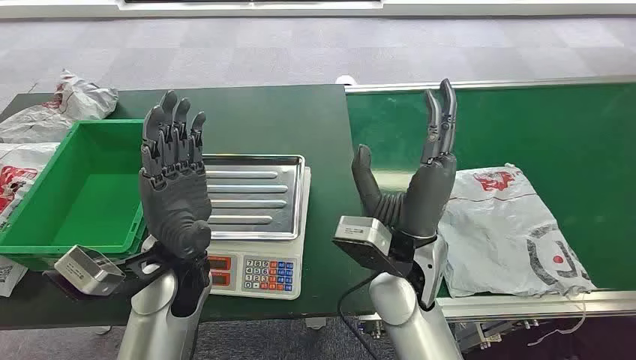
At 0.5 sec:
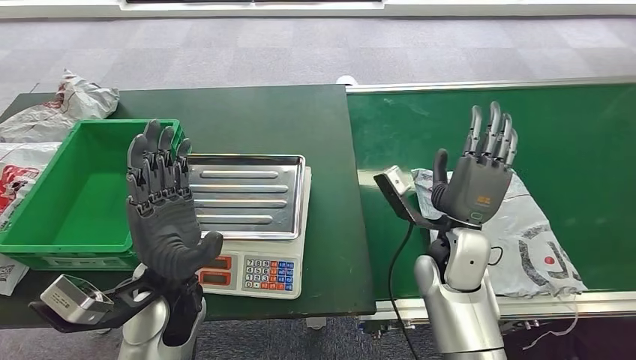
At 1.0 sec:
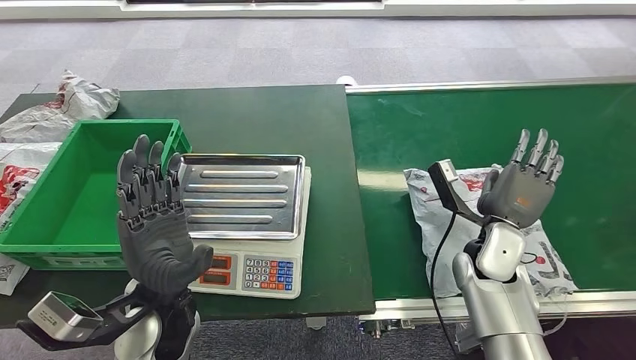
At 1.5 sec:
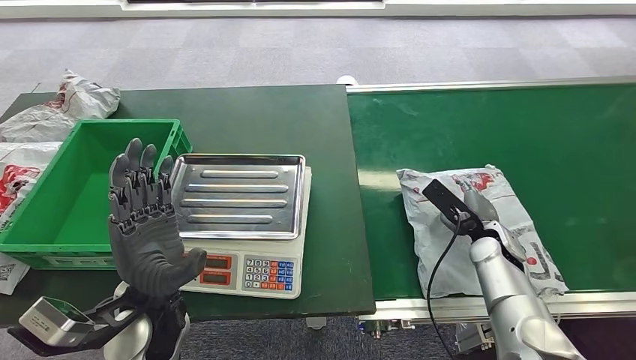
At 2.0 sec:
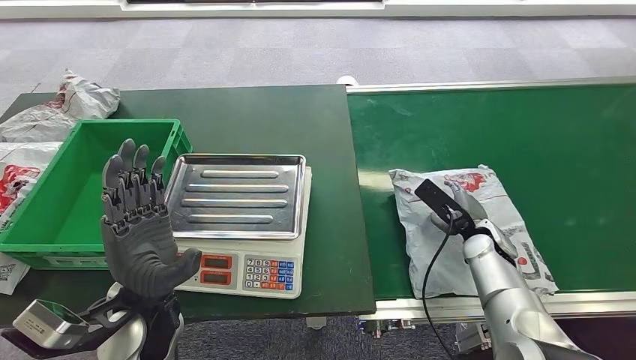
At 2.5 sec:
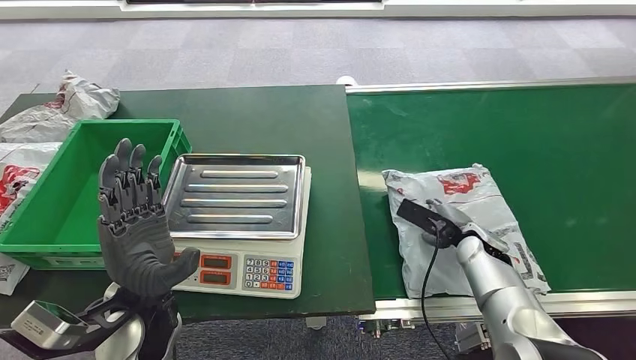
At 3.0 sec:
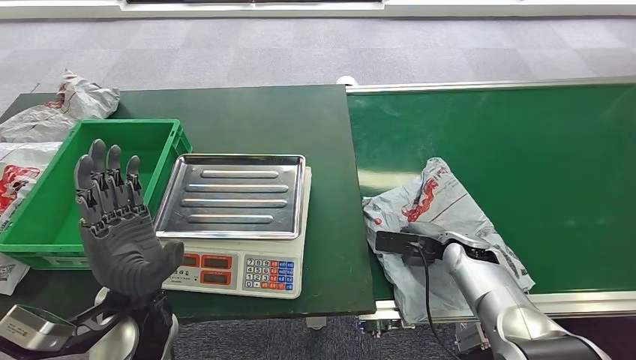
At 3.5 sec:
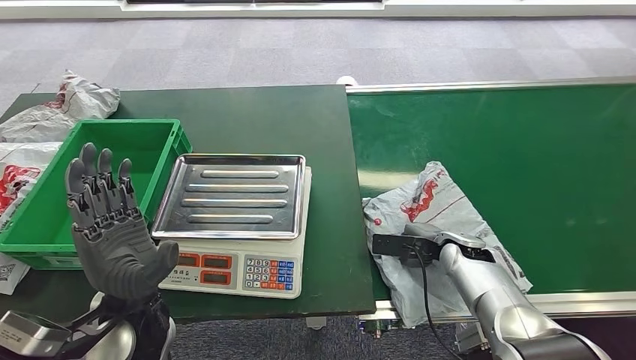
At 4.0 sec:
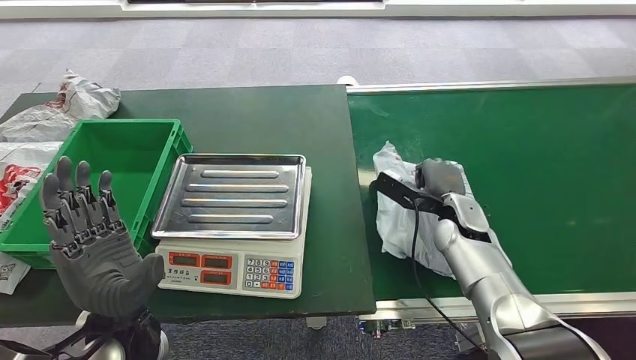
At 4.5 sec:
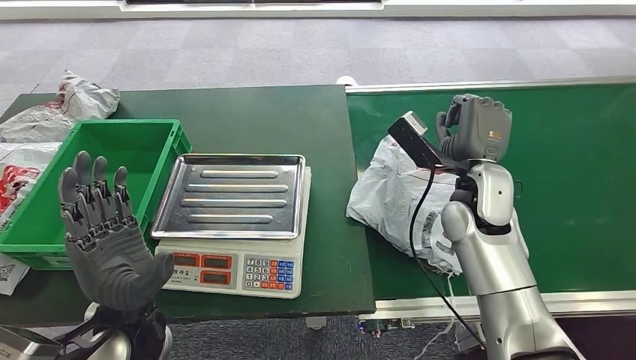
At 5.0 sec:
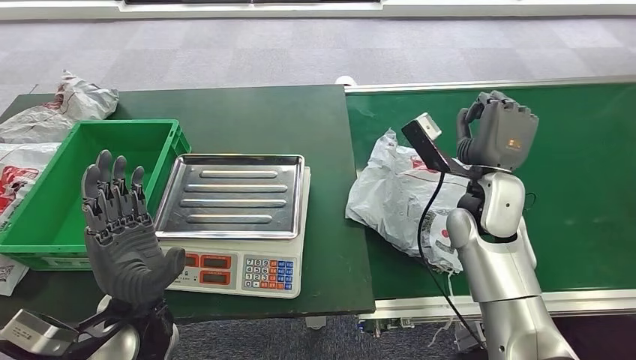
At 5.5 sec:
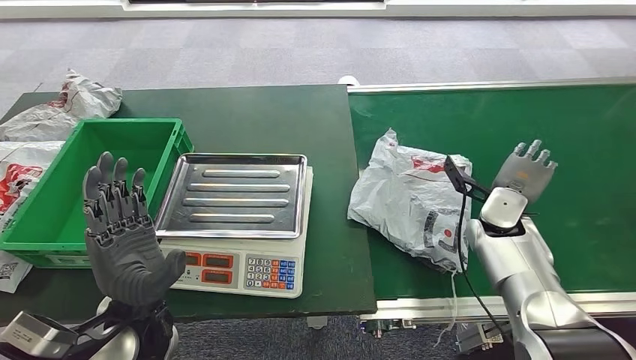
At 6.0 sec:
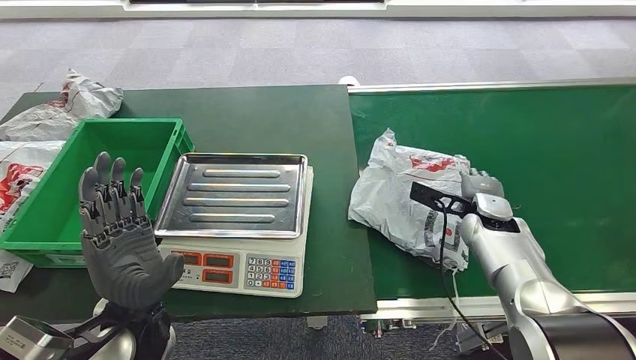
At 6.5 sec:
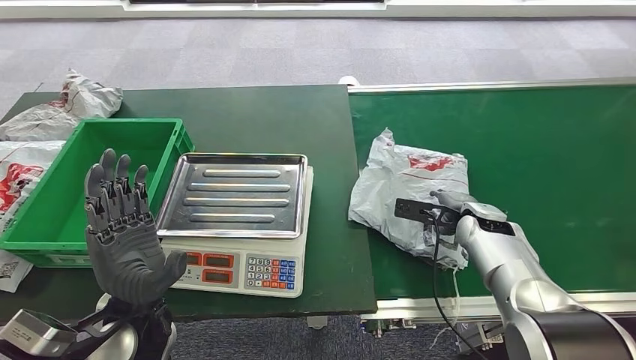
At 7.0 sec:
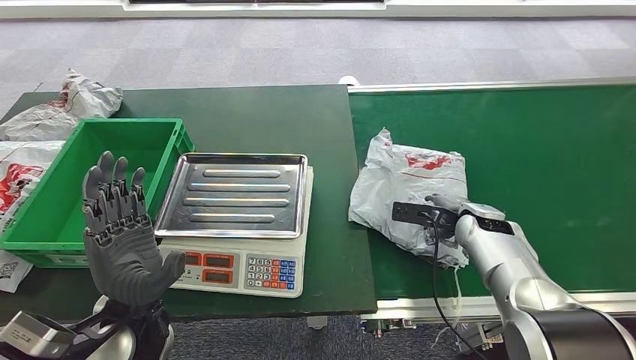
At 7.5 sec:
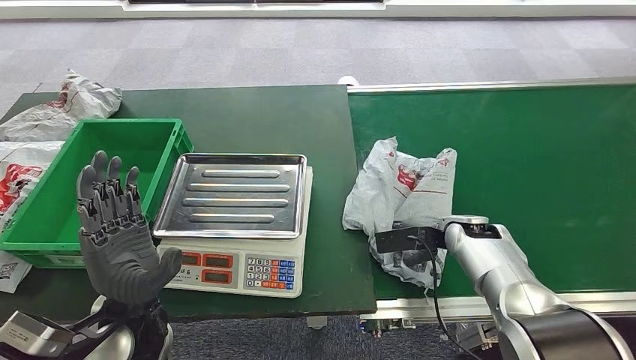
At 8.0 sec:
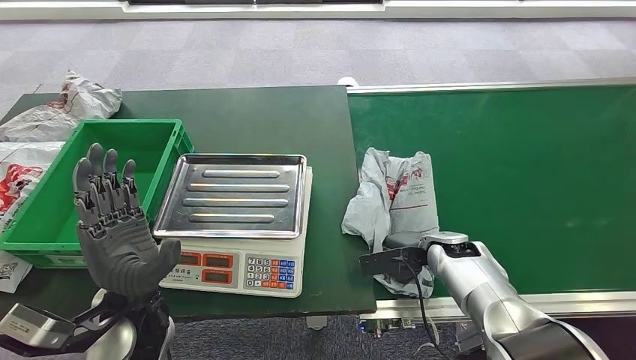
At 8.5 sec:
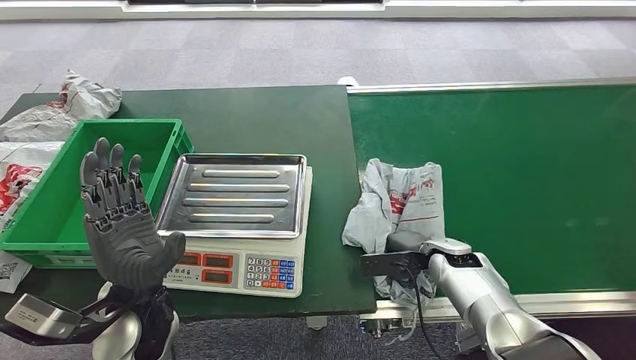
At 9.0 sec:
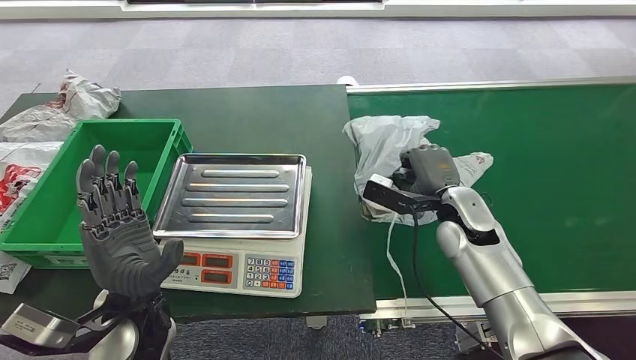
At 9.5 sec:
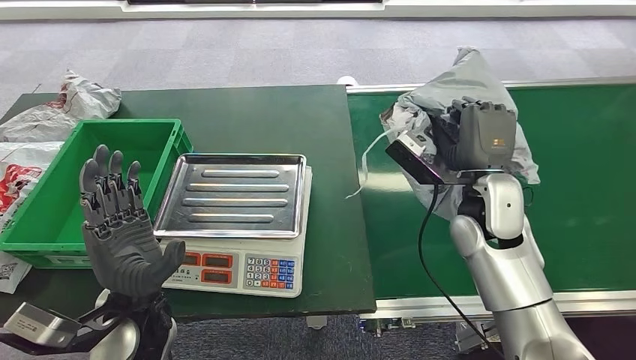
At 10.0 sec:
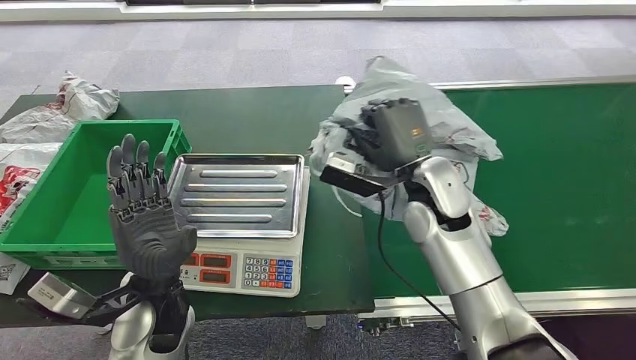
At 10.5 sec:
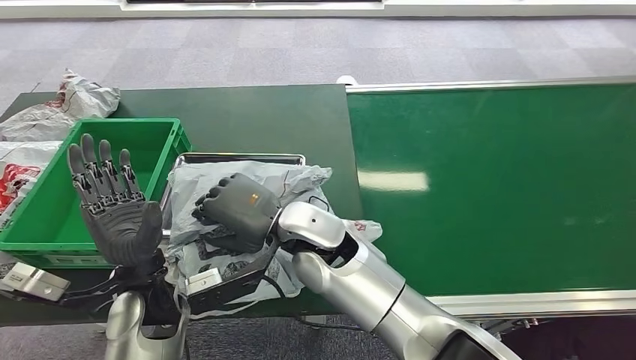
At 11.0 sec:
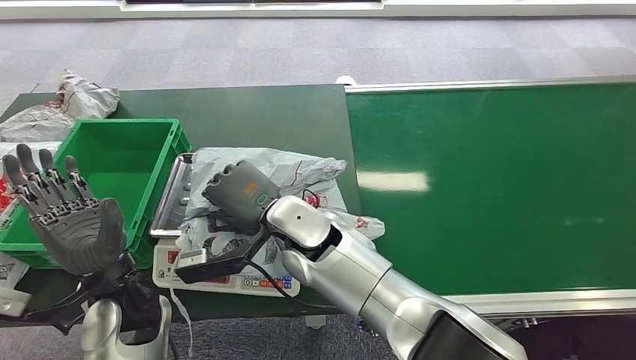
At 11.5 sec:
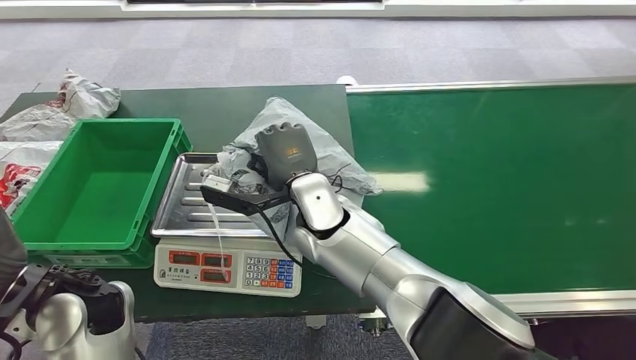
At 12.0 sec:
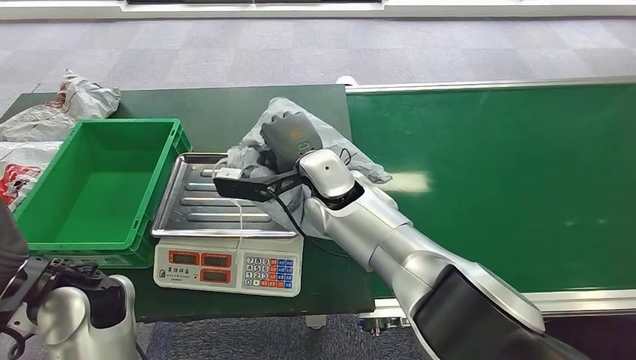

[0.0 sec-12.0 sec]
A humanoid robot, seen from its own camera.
Step, 0.0 sec to 9.0 sec: Pick up the package from the conveyor belt.
2.0 sec to 4.0 sec: The right hand travels to the left by some 5 cm.
4.0 sec to 6.0 sec: The right hand moves to the right, roughly 5 cm, and moves some 10 cm upward and comes back.
6.0 sec to 8.0 sec: The right hand shifts some 10 cm downward and to the left.

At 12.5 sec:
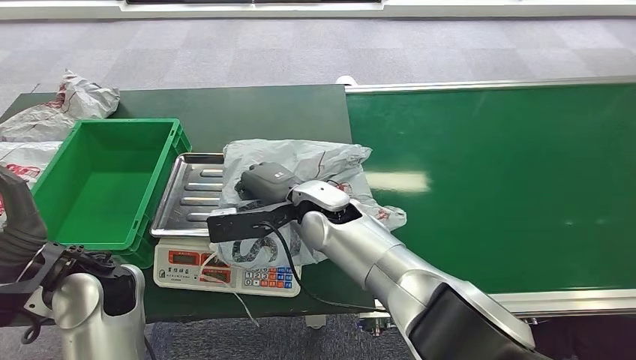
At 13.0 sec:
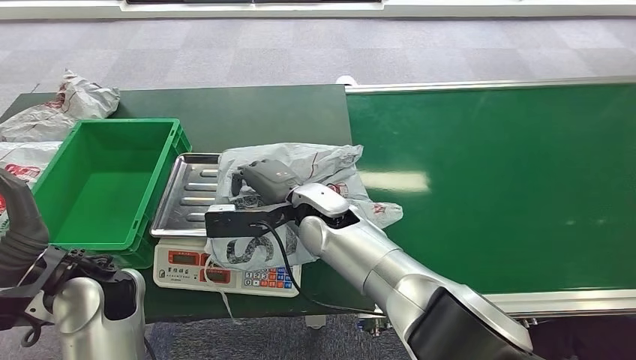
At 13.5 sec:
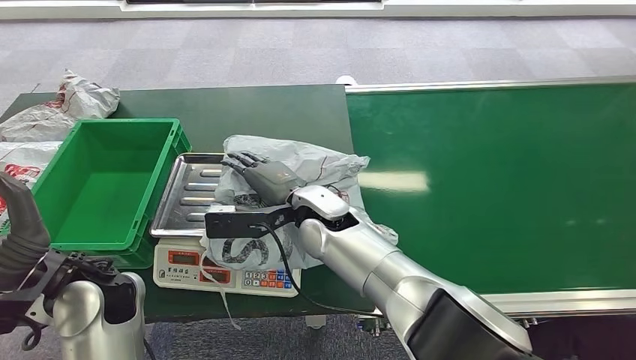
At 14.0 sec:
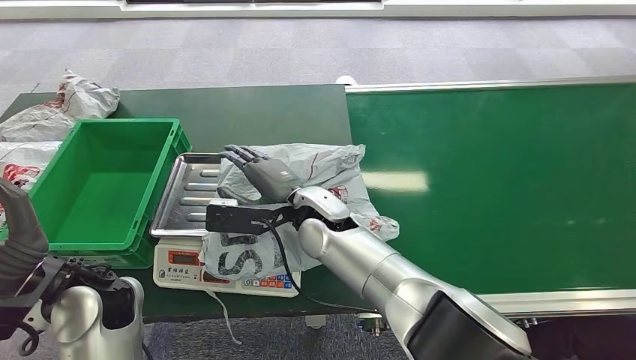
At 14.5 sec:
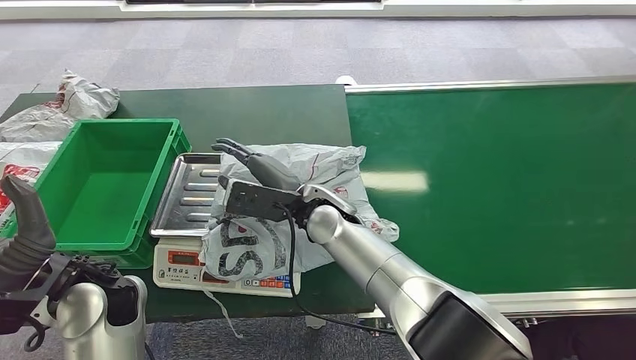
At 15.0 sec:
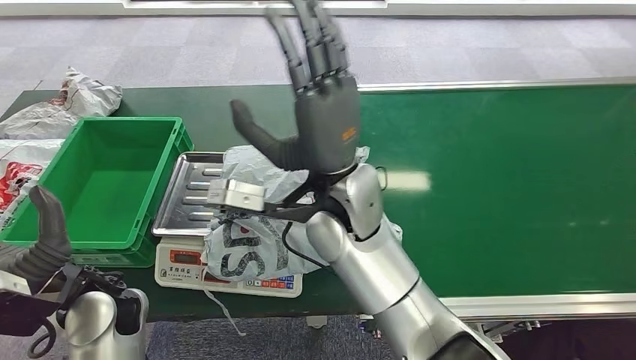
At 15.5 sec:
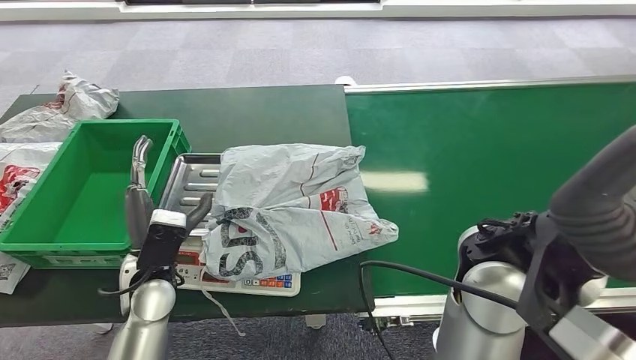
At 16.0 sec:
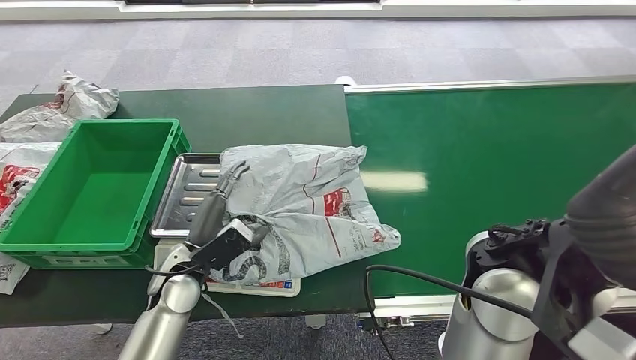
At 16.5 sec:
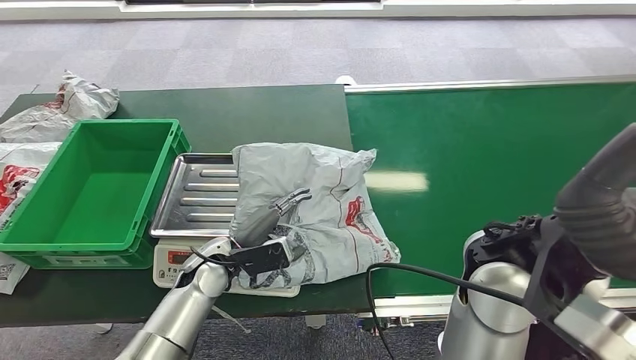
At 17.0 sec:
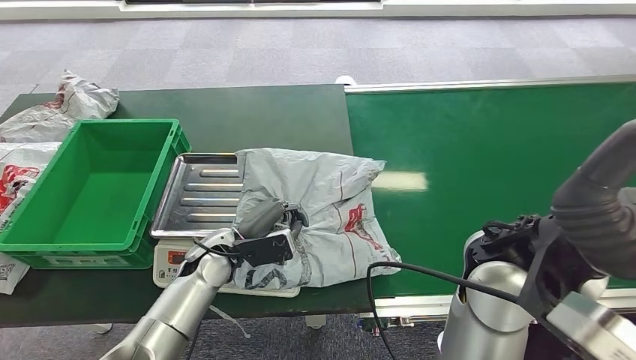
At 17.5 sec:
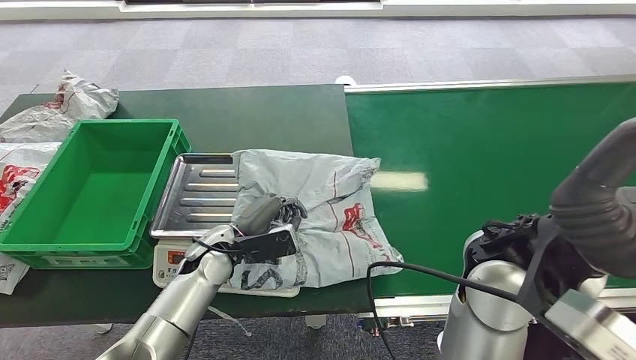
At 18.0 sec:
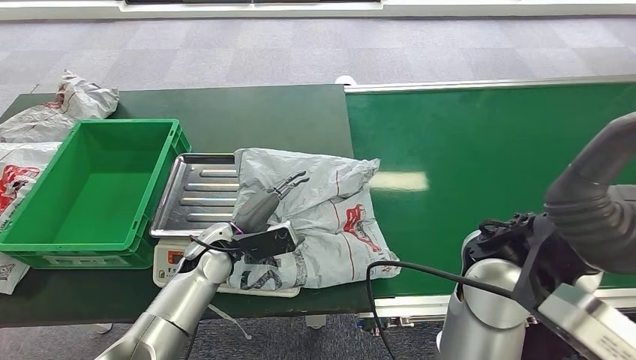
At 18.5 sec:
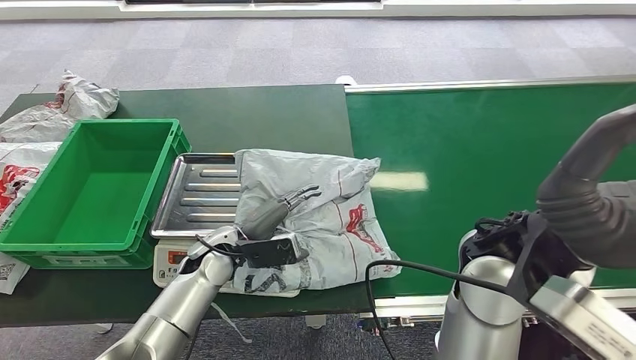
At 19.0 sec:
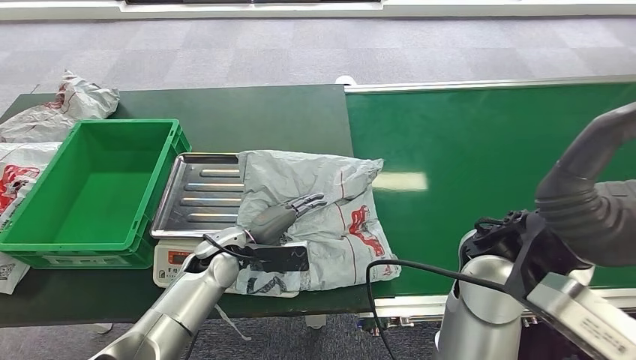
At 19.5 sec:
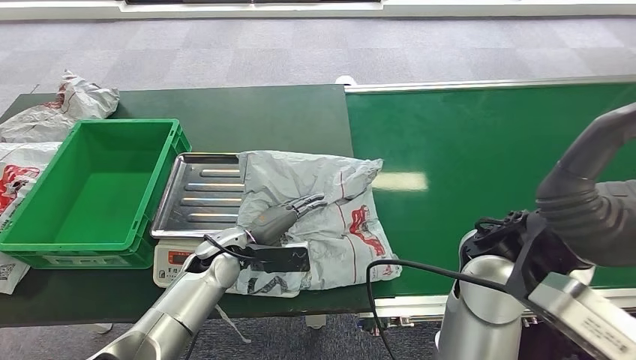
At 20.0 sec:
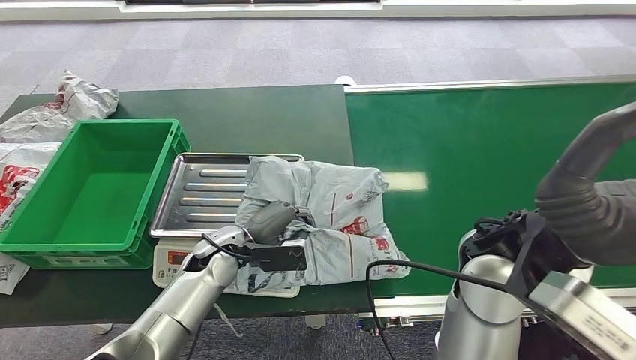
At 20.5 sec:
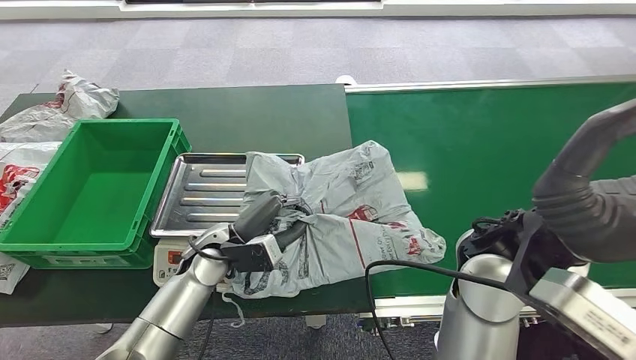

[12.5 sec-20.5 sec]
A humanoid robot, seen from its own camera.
Step, 12.5 sec to 15.0 sec: Place the package onto the inbound machine.
16.5 sec to 20.5 sec: The hands stay close to where they were, moving slightly.
